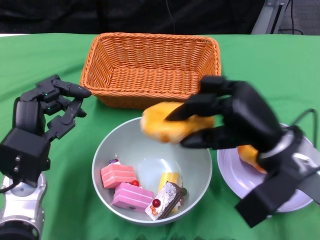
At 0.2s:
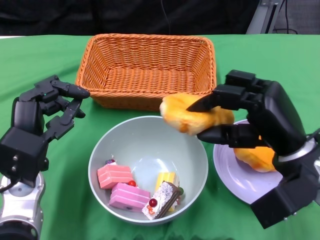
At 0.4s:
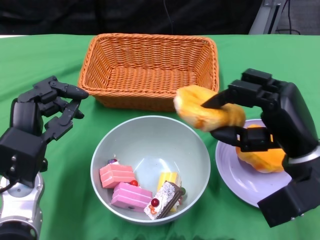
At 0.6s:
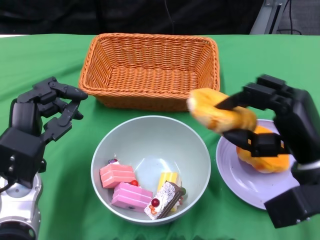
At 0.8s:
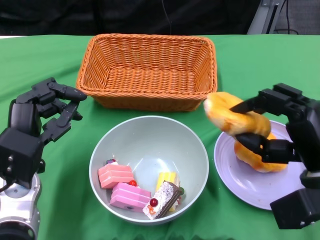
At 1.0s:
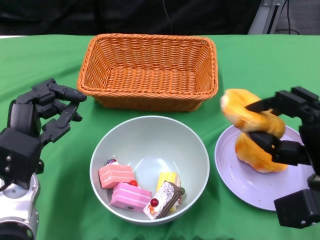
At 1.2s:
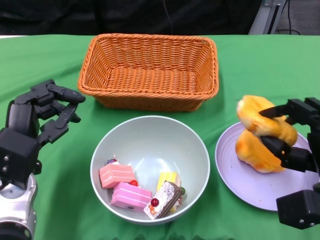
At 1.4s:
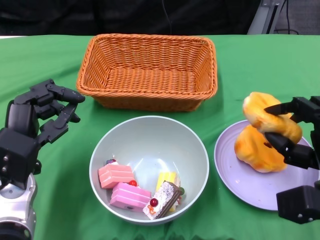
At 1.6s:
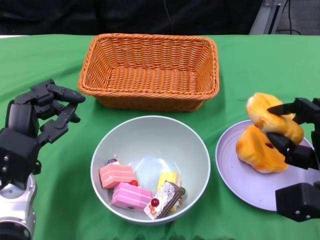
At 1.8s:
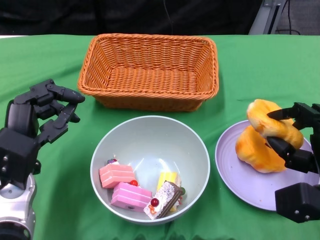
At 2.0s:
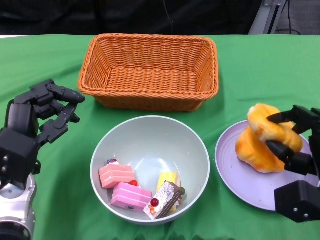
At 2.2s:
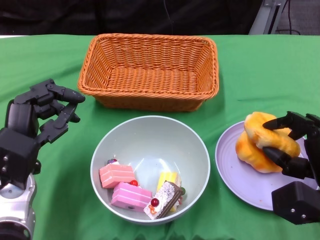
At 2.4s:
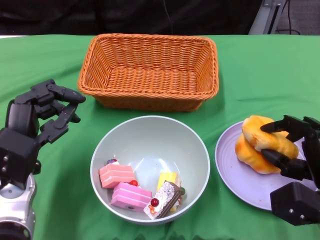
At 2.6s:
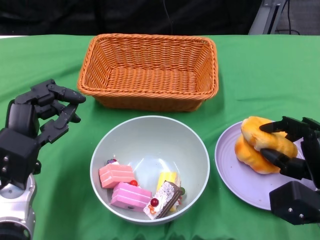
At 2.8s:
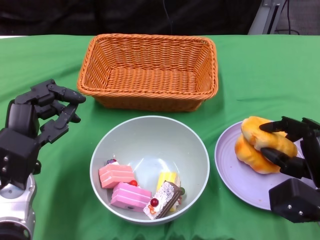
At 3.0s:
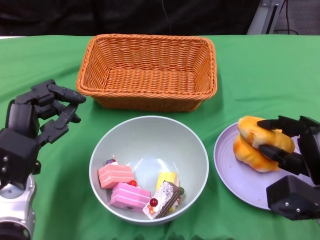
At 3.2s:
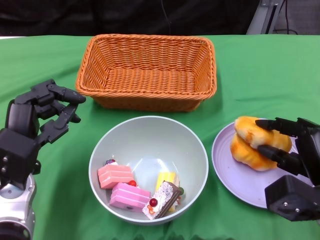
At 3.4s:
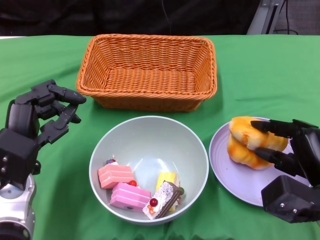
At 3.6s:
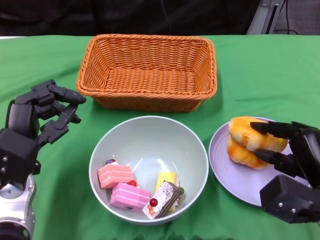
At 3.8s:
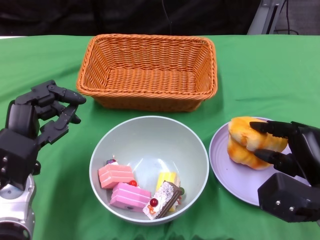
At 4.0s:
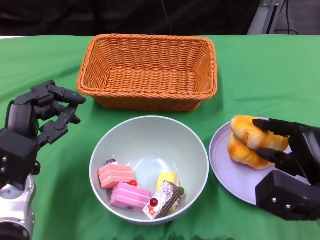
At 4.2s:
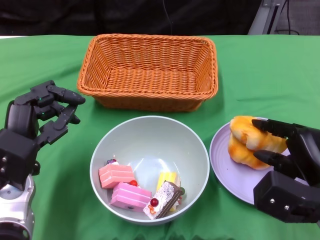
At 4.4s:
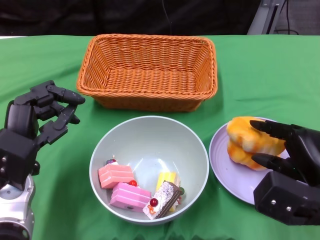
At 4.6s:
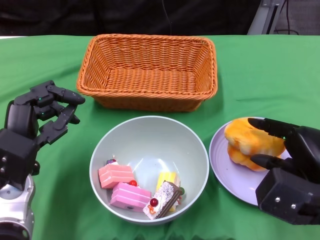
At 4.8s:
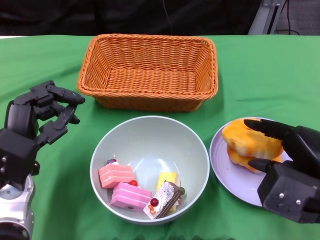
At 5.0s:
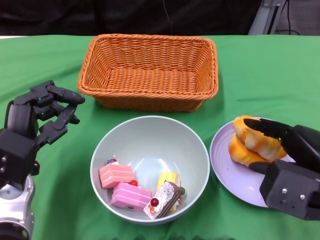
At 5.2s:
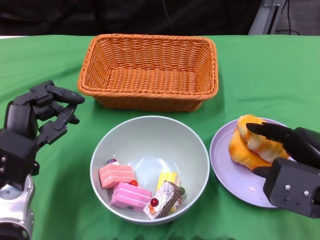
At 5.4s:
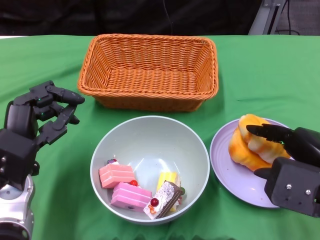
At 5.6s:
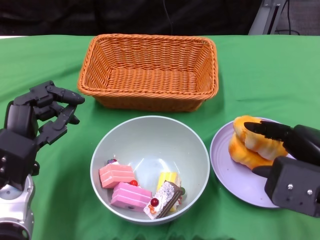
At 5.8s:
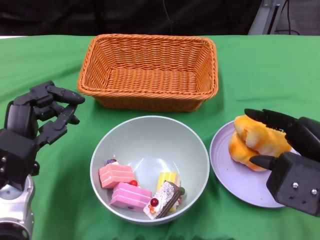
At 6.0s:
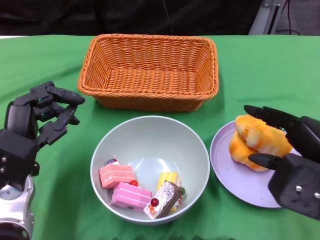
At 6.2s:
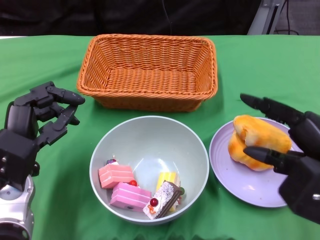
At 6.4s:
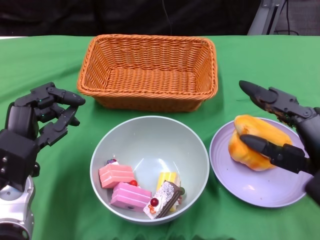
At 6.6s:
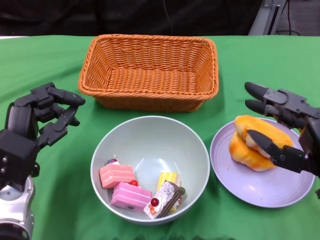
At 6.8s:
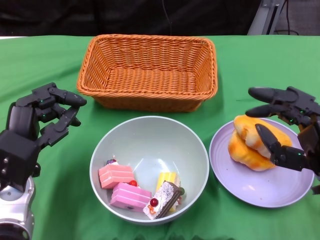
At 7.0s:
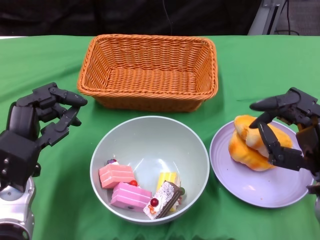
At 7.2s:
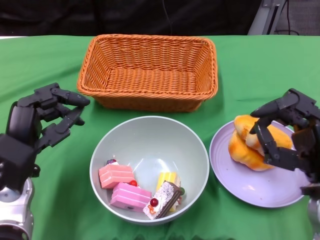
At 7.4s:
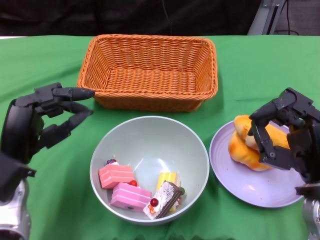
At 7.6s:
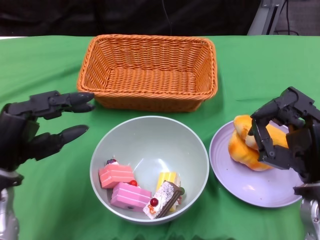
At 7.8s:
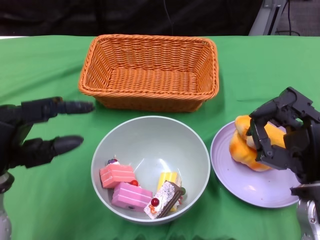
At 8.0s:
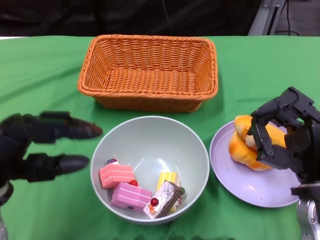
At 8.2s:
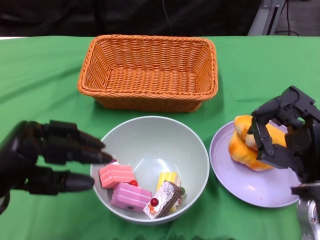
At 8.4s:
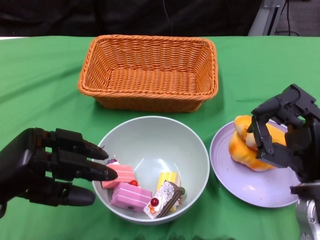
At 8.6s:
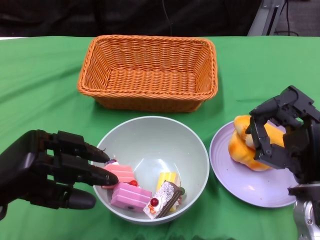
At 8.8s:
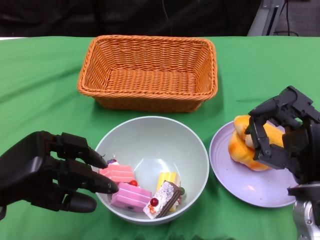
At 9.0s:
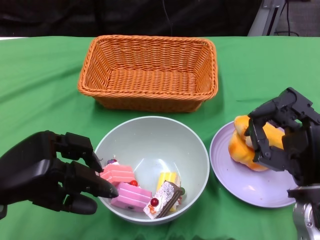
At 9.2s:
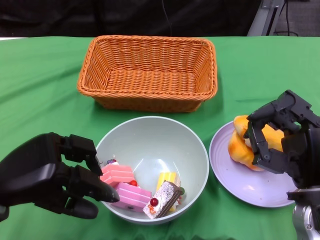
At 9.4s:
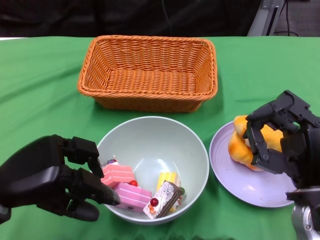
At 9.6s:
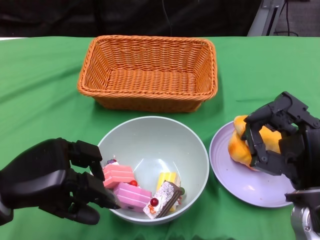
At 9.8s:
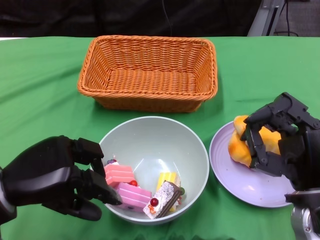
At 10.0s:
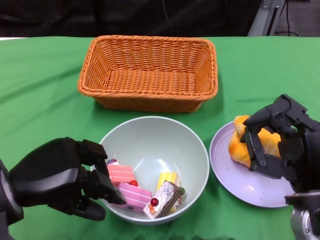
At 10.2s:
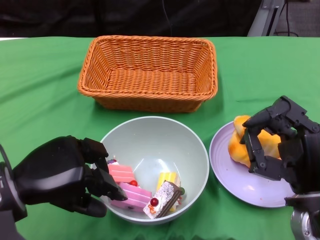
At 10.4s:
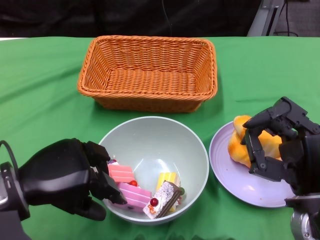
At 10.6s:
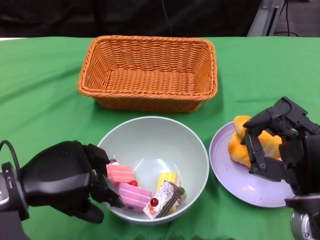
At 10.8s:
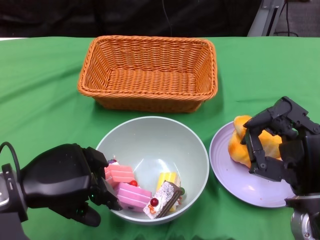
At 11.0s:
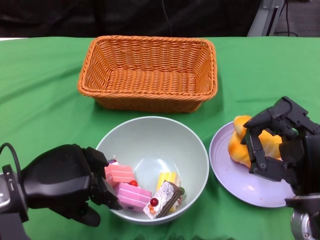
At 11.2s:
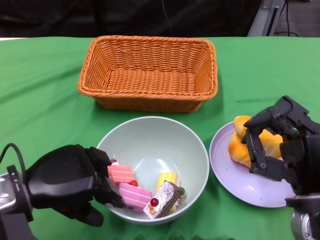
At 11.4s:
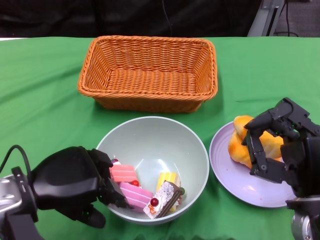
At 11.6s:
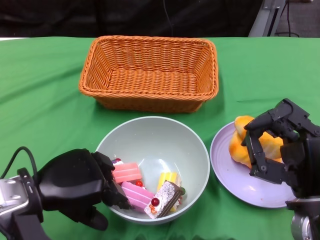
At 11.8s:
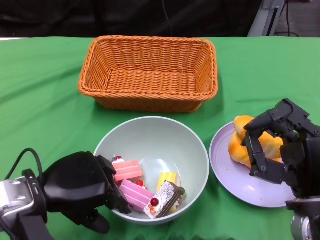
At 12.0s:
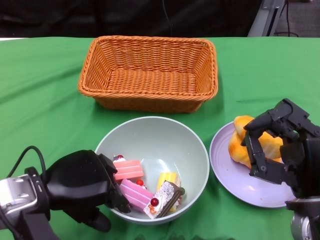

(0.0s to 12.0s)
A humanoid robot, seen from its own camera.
Step, 0.0s - 6.4s: Pick up the bread with the right gripper and place it on the plate.
0.0s - 1.6s: The right hand moves to the right and downward, some 10 cm.
1.6s - 3.0s: The hands make only small movements.
3.0s - 4.4s: The right hand changes place by some 5 cm.
4.4s - 6.0s: The right hand is displaced upward by about 5 cm.
6.0s - 7.6s: The right hand shifts about 5 cm downward.
9.0s - 10.4s: The hands stay close to where they were, moving slightly.
10.4s - 12.0s: The hands move only a little.

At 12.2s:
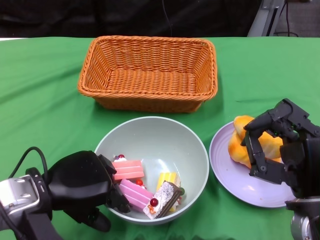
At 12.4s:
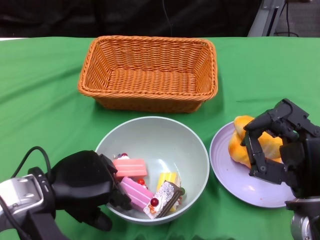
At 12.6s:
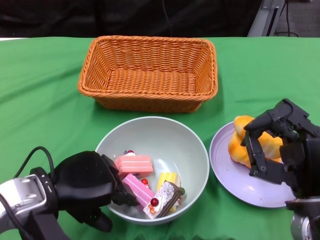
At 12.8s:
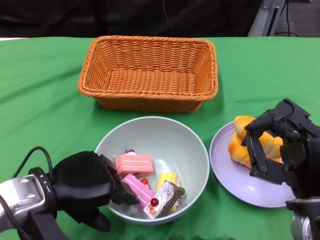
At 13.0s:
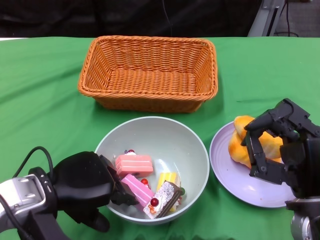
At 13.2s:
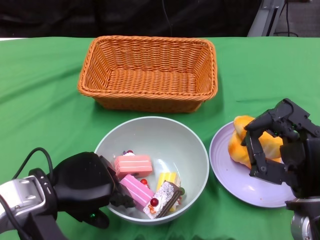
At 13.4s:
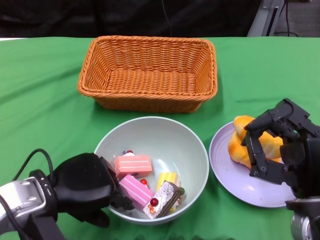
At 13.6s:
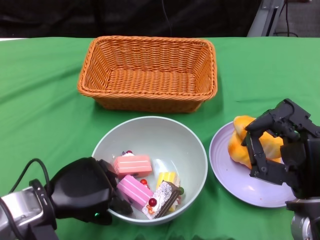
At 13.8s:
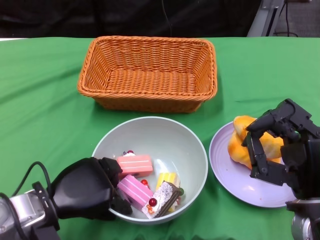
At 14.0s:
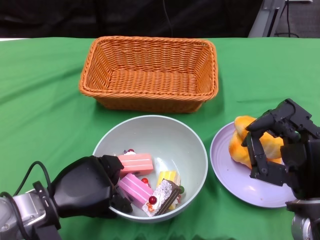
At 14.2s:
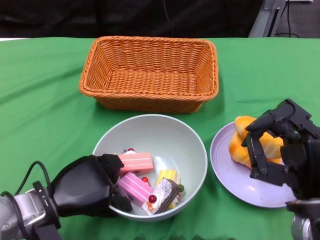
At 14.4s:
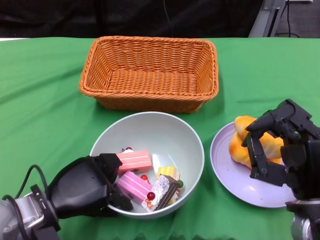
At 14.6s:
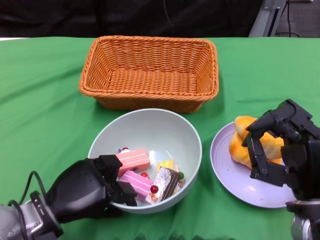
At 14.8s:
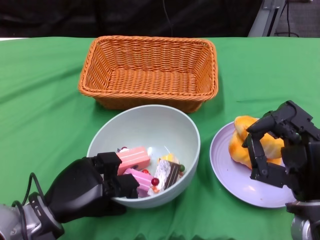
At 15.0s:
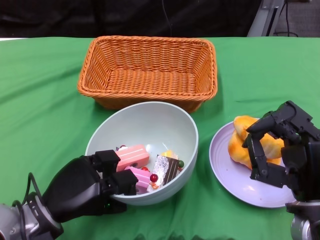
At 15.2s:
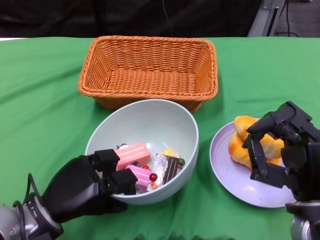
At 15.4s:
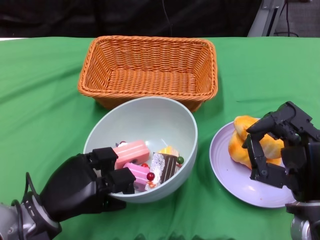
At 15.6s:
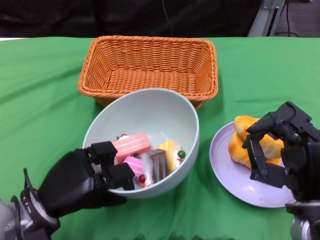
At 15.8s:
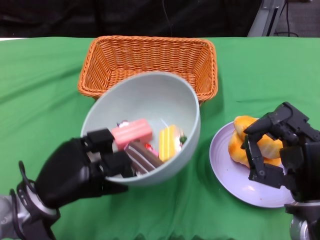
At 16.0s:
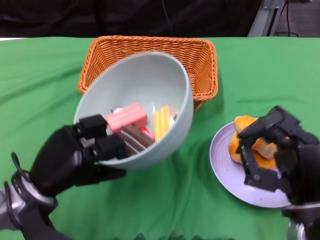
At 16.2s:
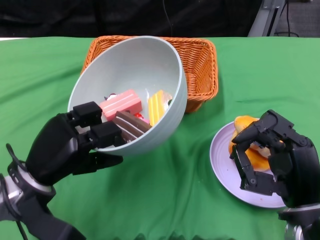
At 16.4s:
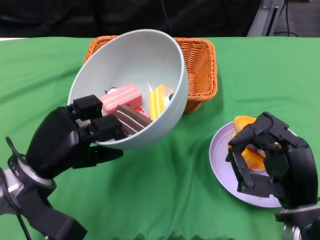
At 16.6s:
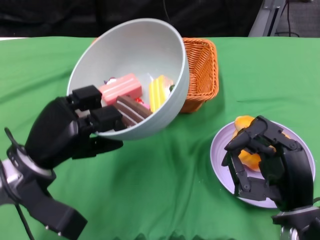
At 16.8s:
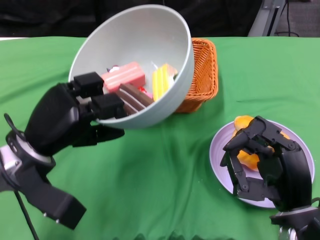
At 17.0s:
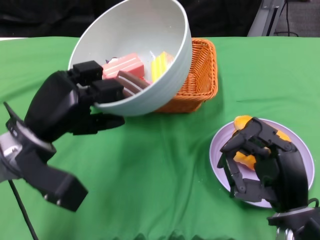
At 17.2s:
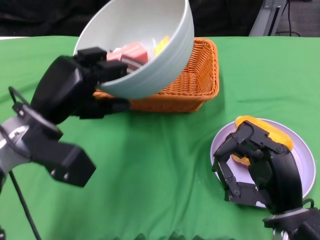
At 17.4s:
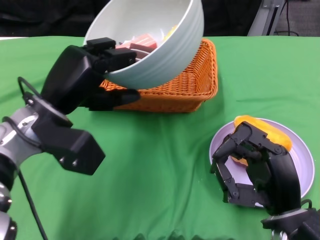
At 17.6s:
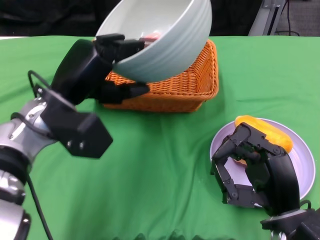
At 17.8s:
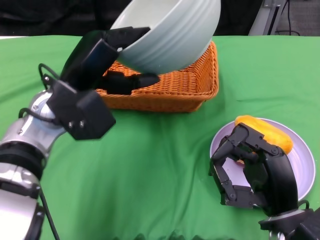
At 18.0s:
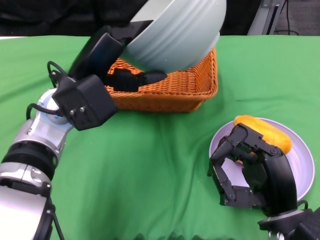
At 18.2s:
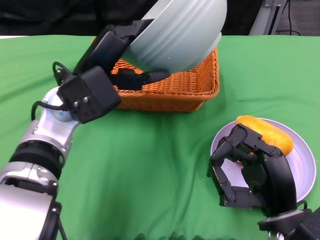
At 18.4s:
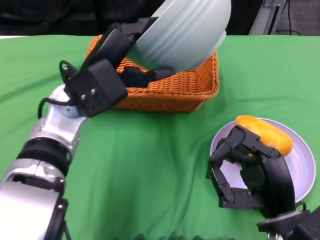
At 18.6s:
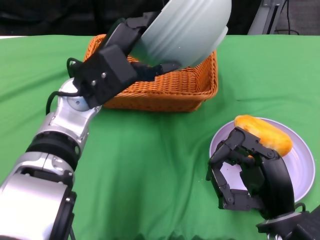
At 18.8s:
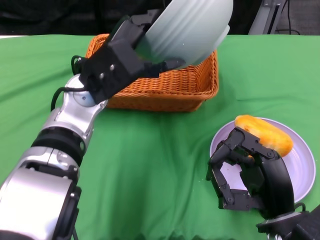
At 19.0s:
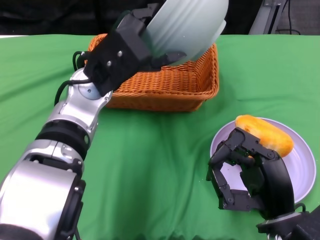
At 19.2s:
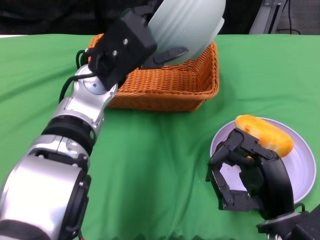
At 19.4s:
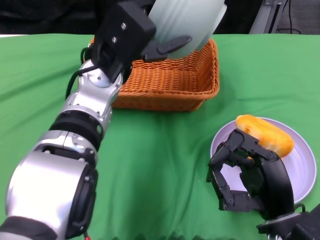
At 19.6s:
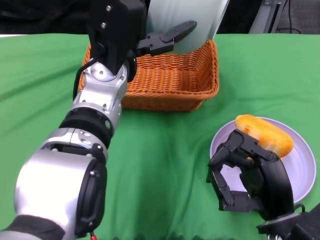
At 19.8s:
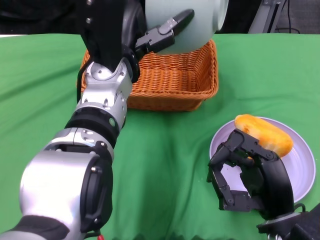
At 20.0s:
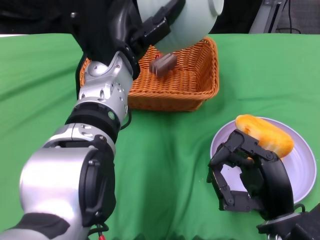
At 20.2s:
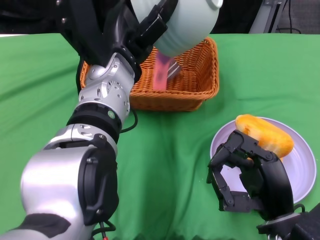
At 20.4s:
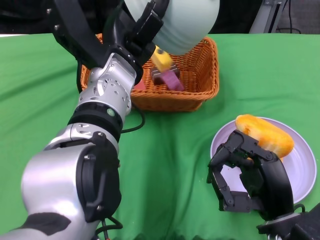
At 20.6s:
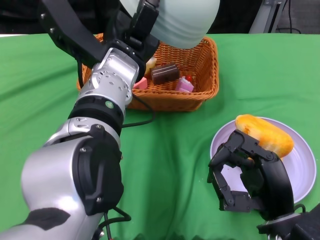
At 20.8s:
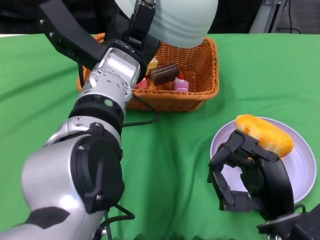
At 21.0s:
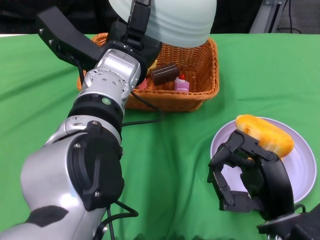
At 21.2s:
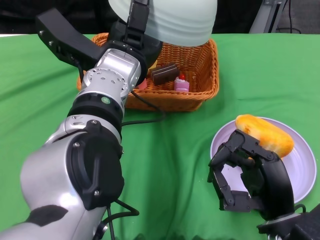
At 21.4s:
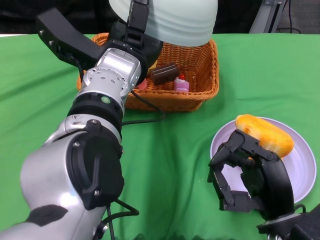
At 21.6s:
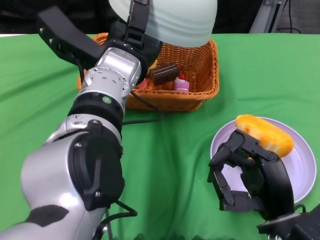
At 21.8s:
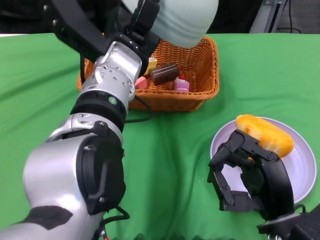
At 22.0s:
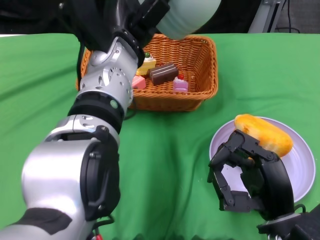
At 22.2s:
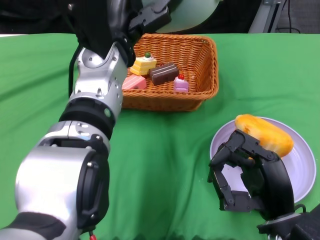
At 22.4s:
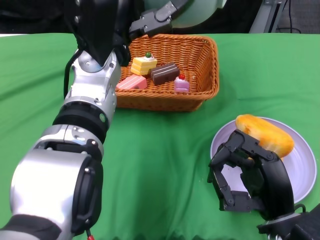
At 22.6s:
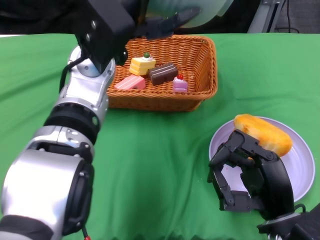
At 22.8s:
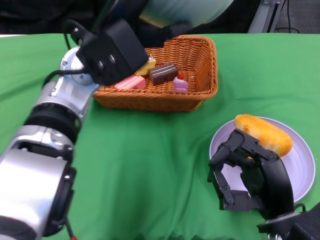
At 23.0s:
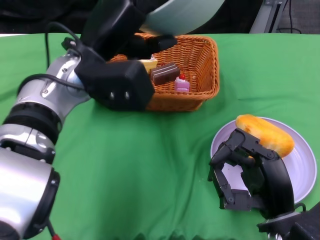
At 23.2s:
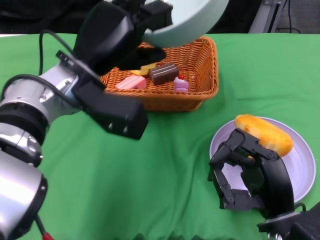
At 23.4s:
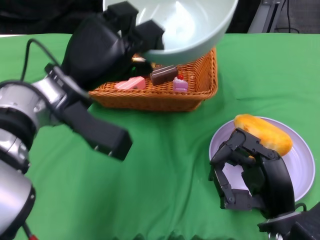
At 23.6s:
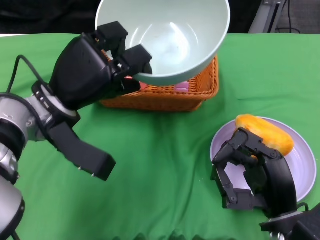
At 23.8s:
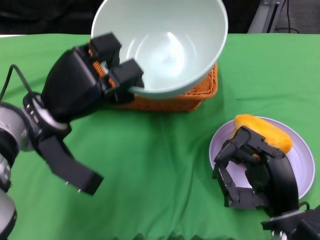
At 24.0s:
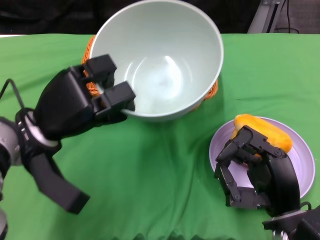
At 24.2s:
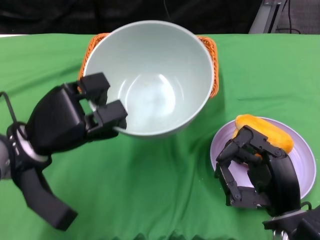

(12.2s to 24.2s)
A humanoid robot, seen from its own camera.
Step, 12.2s - 14.2s: Grasp the bowl with the left gripper.
Step, 14.4s - 21.2s: Pour the cake into the basket with the left gripper.
12.2s - 13.8s: The hands make only small movements.
15.2s - 16.6s: The left hand shifts about 5 cm upward.
16.6s - 18.2s: The left hand travels upward, to the right and forward by approximately 10 cm.
18.2s - 19.8s: The left hand goes approximately 5 cm to the right.
22.6s - 24.2s: The left hand moves downward and to the left, roughly 15 cm.
